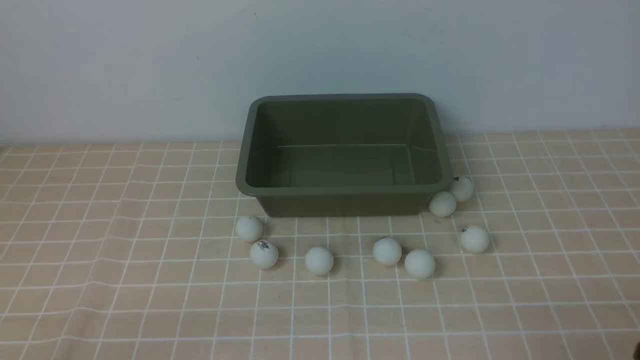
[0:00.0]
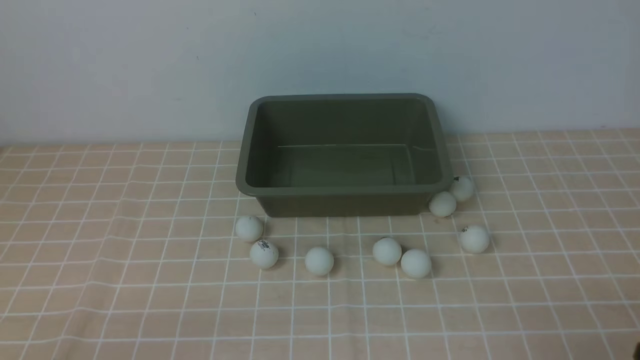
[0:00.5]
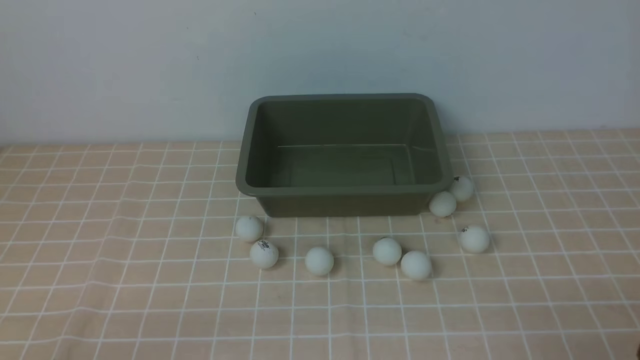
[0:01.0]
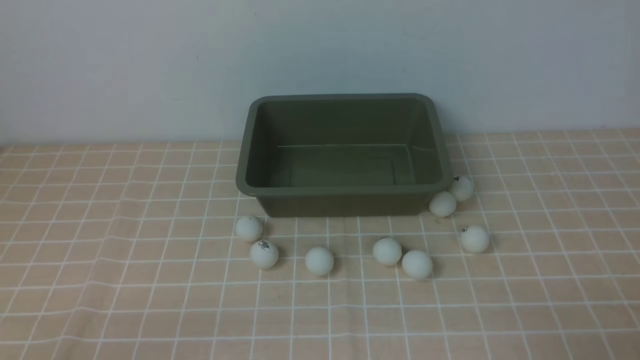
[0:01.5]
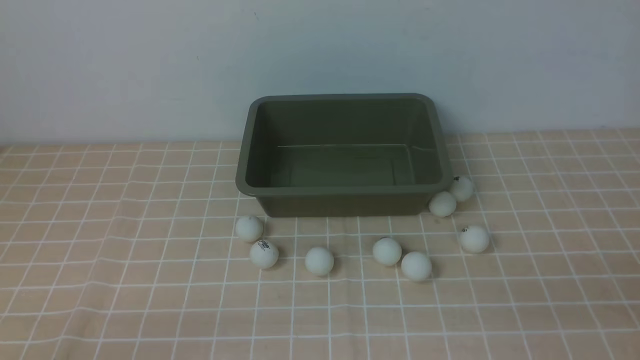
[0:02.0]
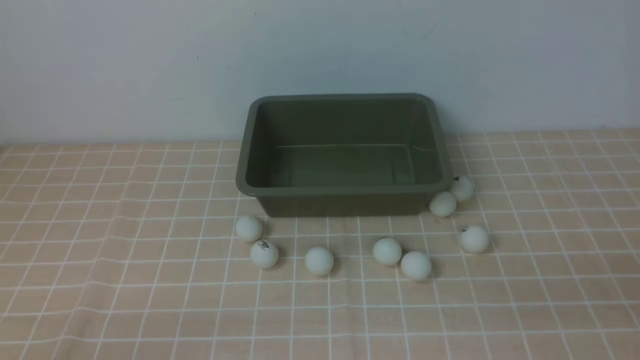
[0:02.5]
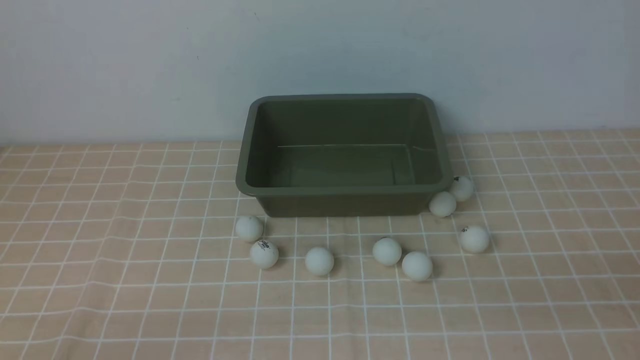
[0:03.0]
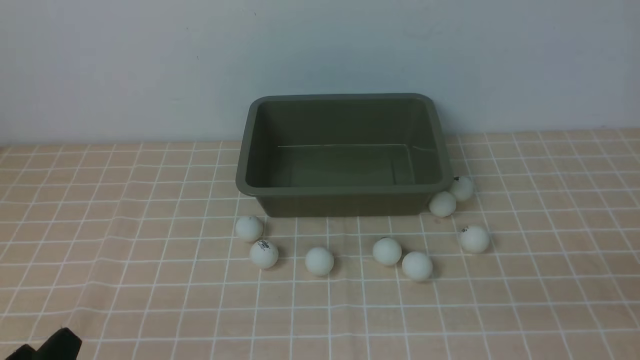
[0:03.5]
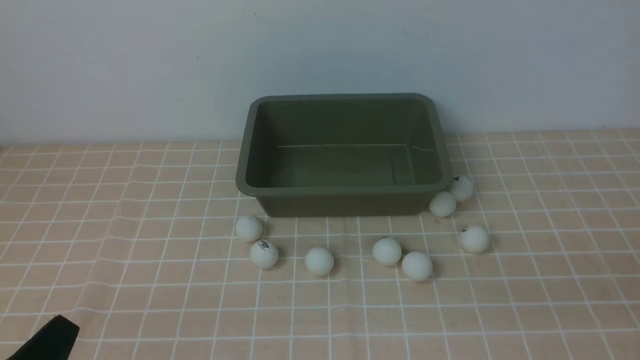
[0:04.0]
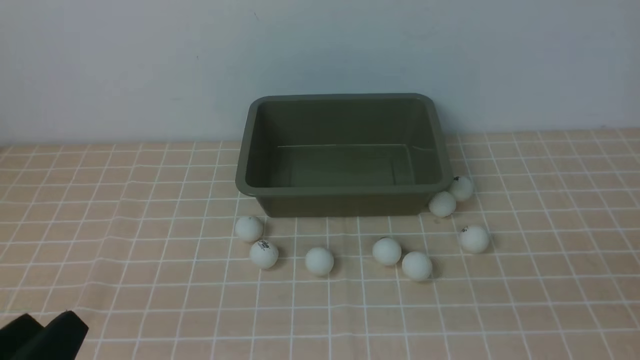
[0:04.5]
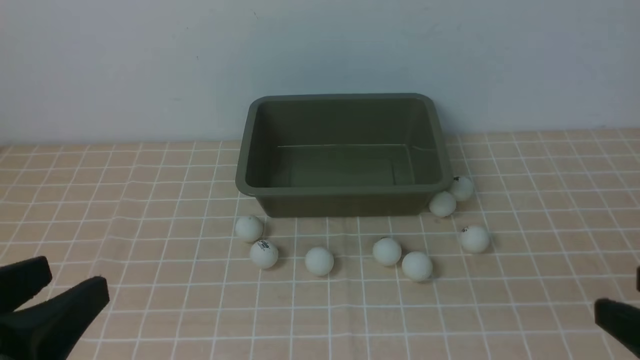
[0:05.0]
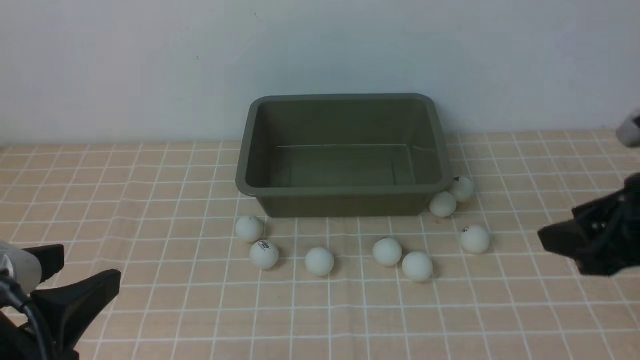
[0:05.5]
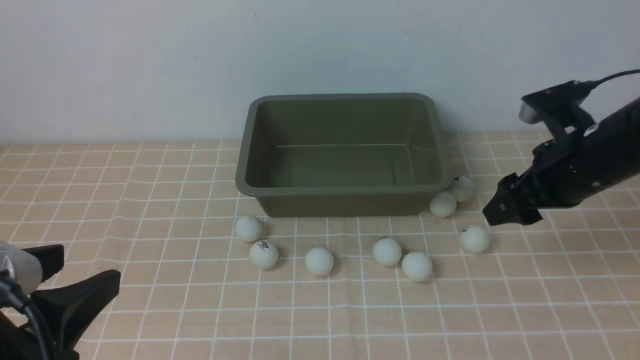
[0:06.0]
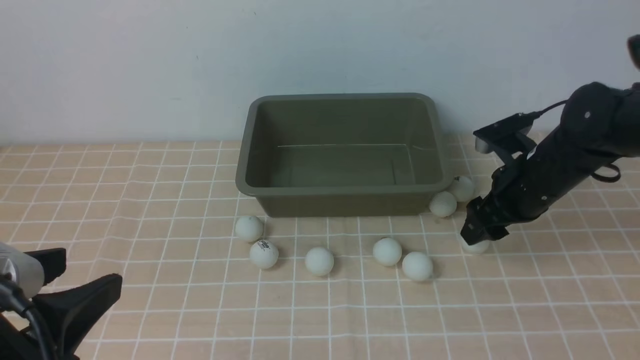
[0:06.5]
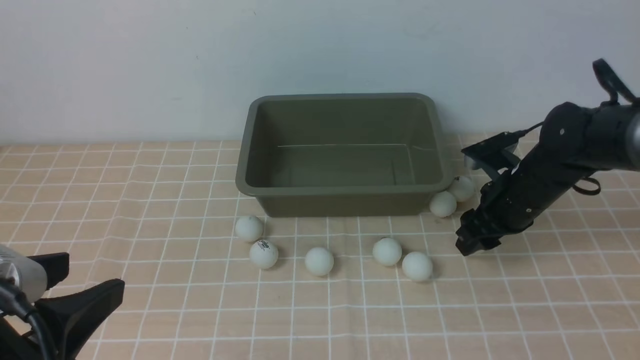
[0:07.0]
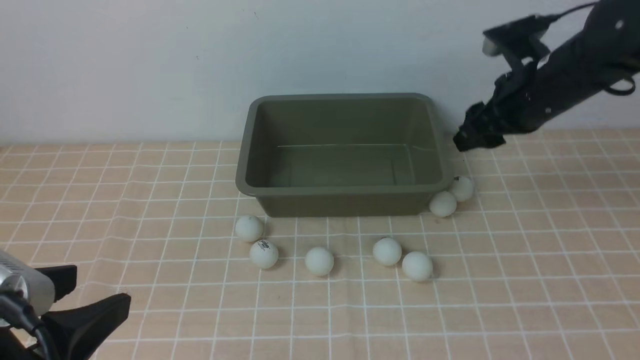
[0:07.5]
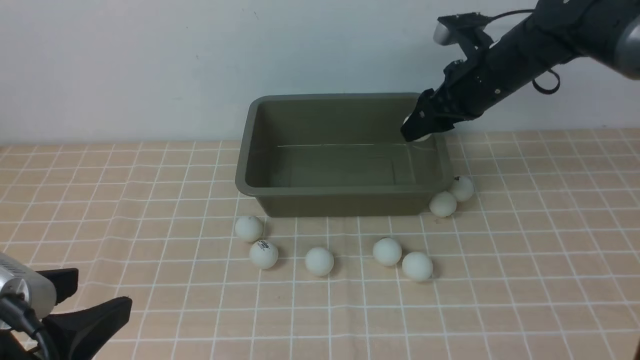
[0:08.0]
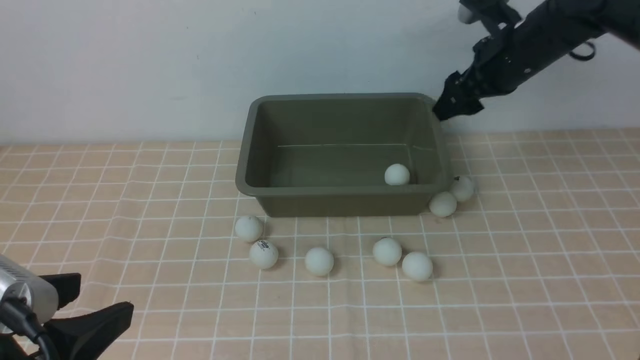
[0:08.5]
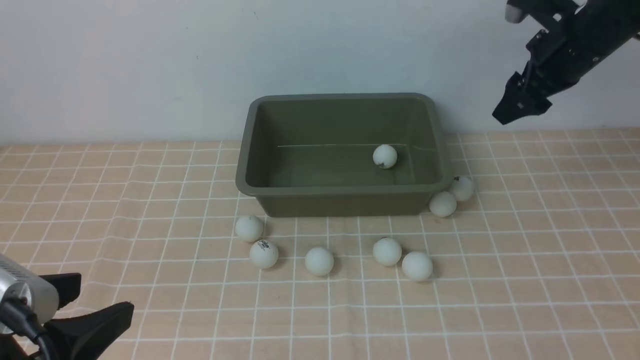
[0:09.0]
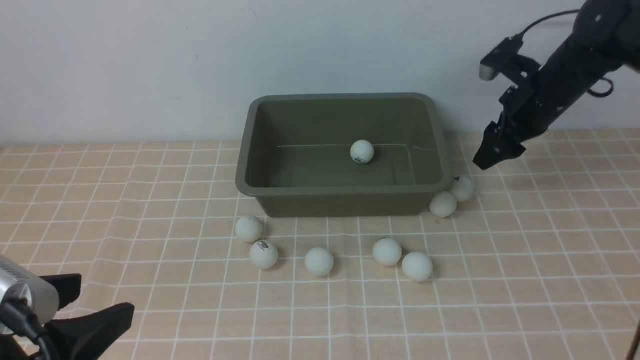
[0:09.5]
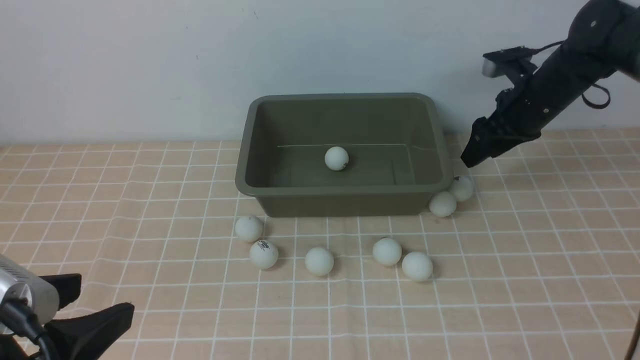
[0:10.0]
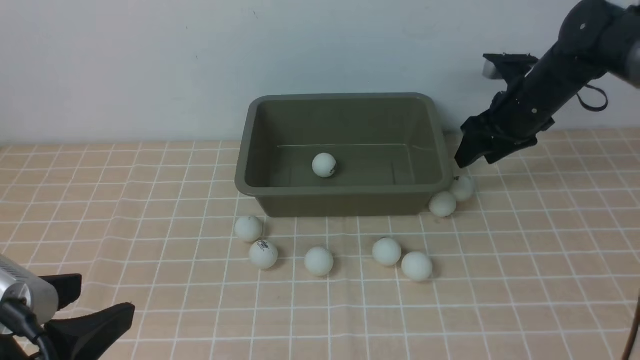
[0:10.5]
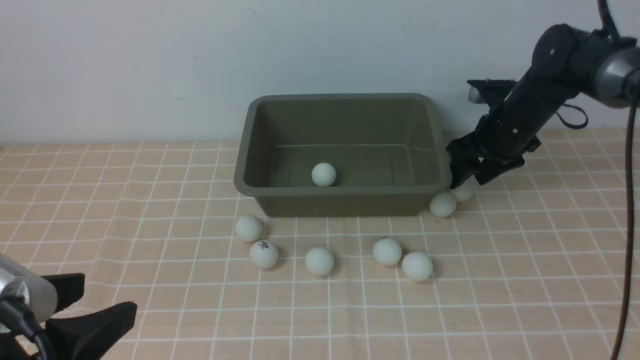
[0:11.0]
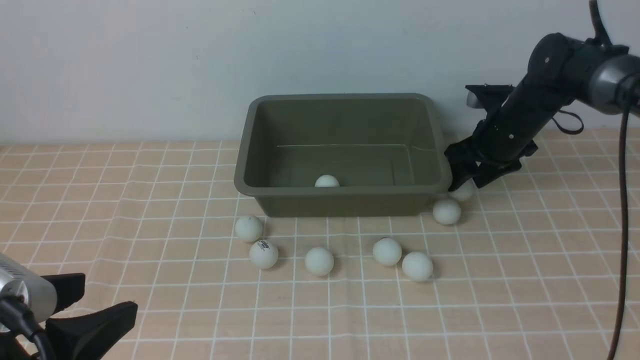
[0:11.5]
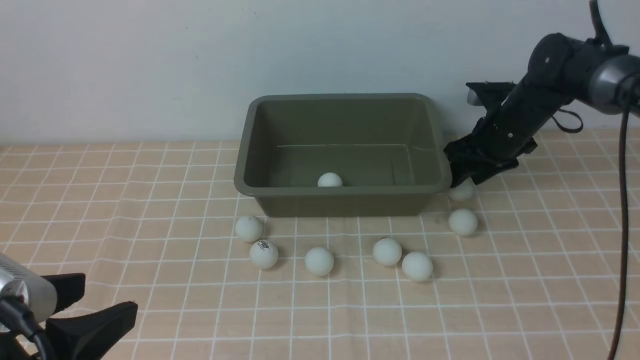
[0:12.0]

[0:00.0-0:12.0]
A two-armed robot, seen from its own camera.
Step, 0:00.0 to 0:07.5: use the right arm to clamp the table tennis ball closest to it.
0:04.0 to 0:06.0: The right gripper shifts roughly 30 cm forward, and opens its fingers, while the left gripper shifts some 10 cm upward.
0:06.0 to 0:08.0: The right gripper is displaced forward and to the left by some 15 cm.
0:08.0 to 0:10.0: The right gripper moves to the right, approximately 5 cm, and opens and closes again.
0:10.0 to 0:12.0: The right gripper shifts by some 5 cm.

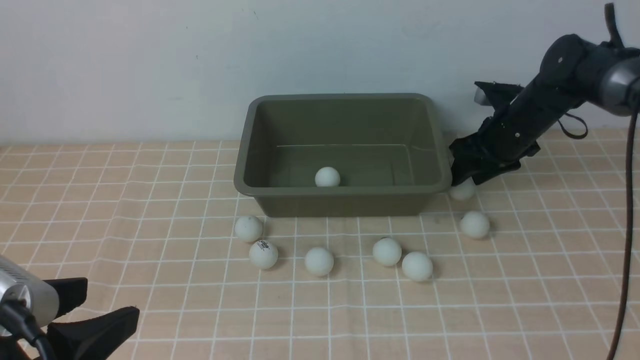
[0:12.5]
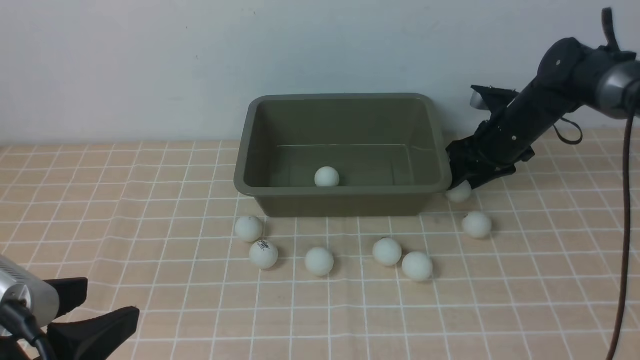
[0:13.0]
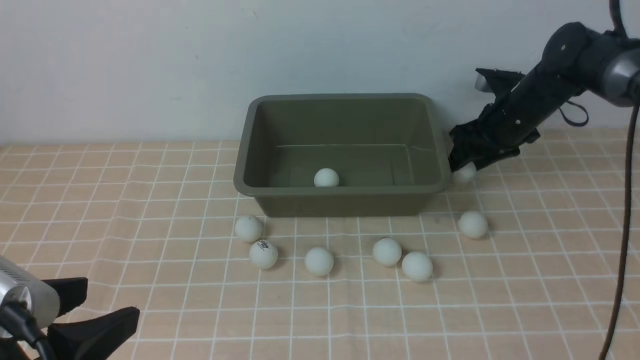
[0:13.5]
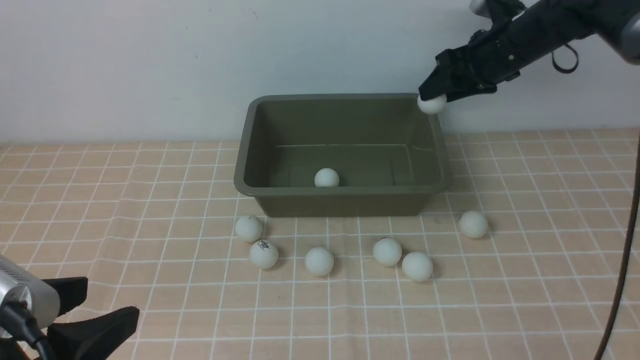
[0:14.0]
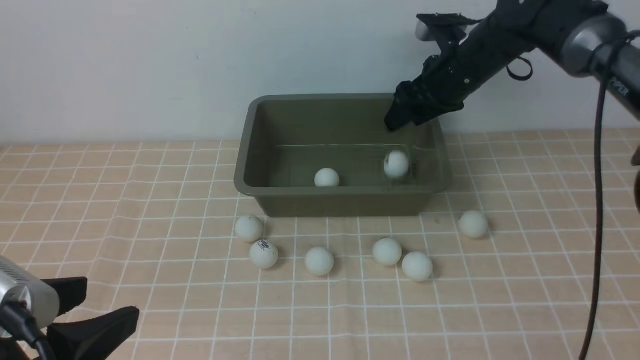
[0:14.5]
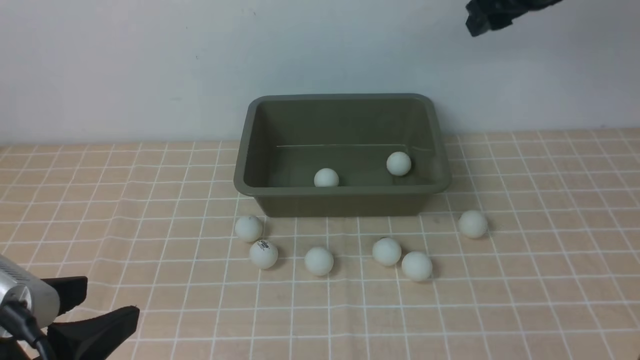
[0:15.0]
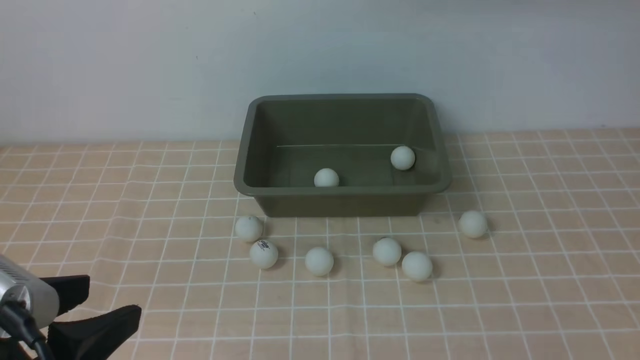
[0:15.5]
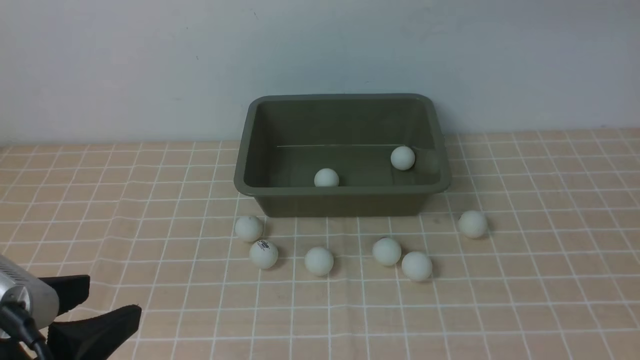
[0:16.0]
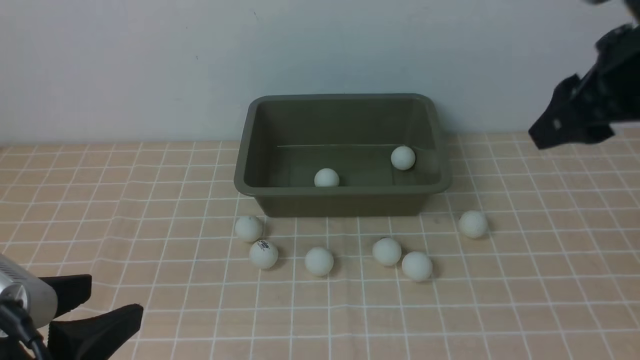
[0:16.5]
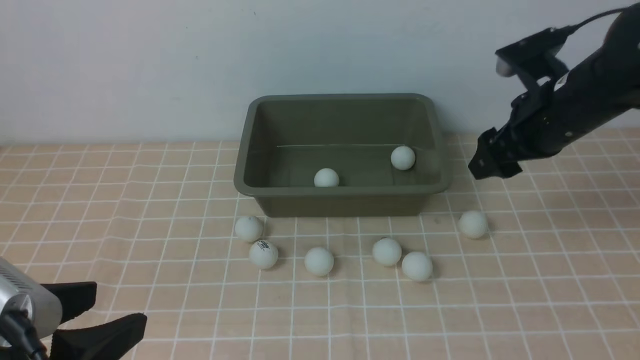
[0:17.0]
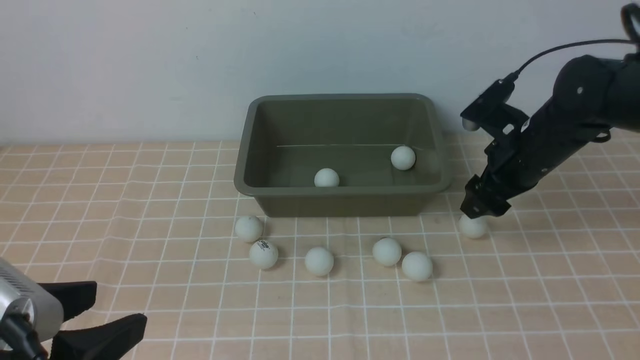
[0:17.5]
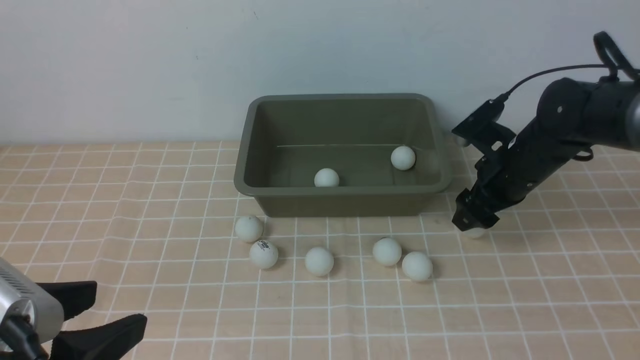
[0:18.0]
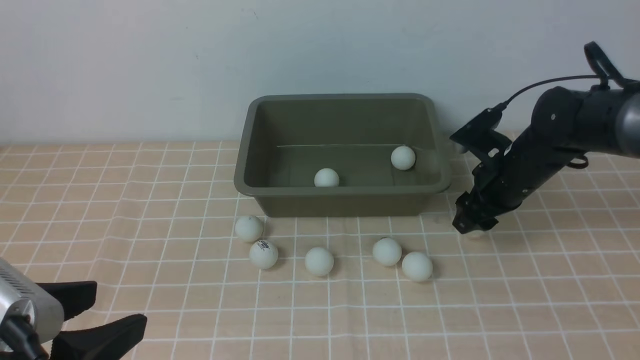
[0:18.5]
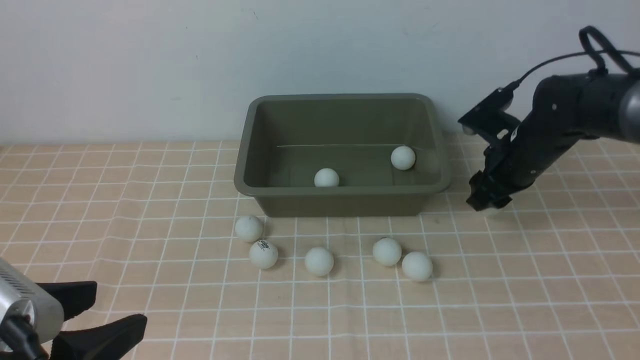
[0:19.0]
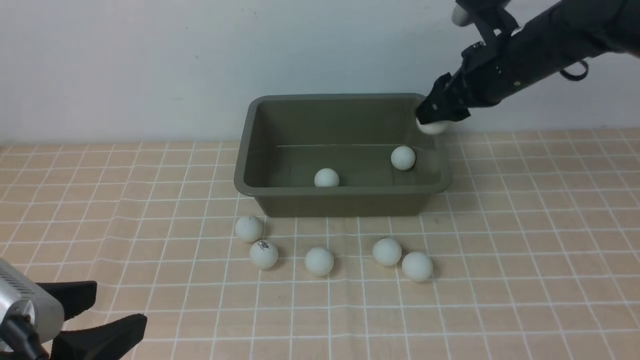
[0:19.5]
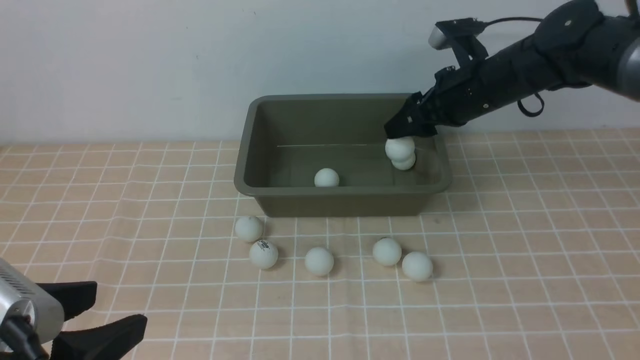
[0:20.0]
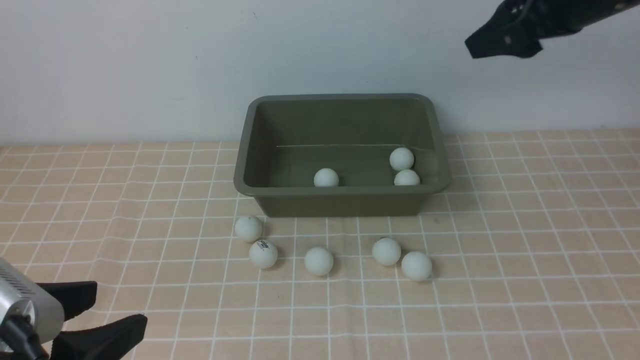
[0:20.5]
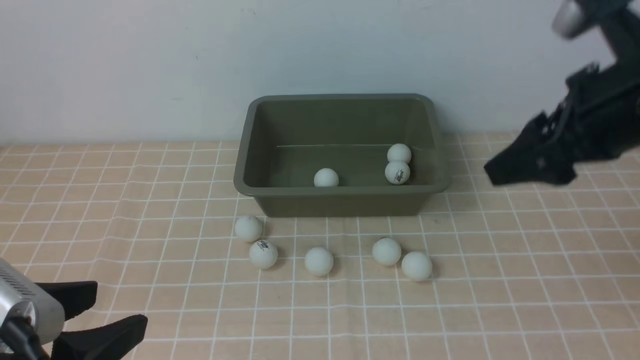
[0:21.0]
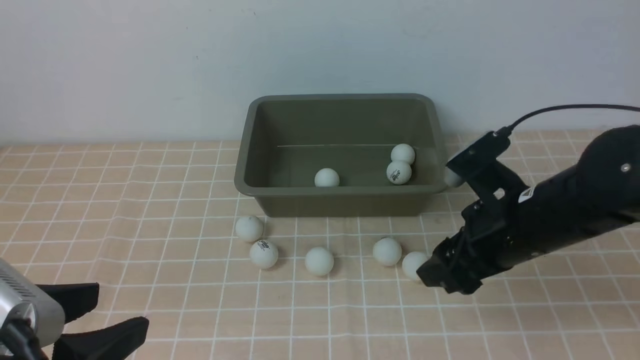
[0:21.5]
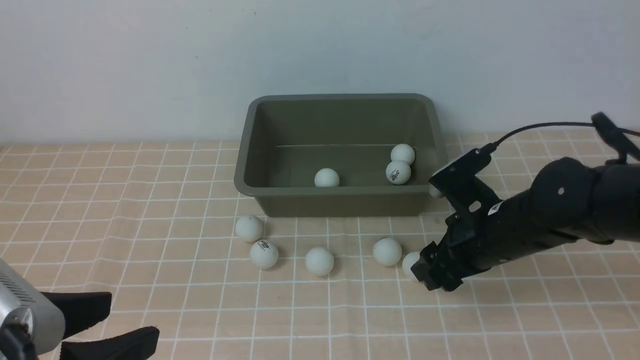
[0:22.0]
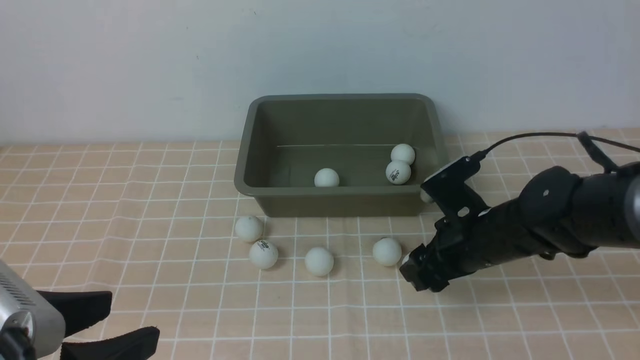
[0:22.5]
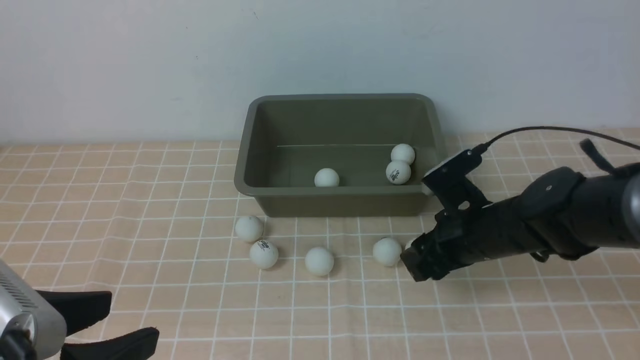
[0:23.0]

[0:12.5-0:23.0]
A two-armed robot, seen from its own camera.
Step, 0:14.0 to 0:14.5: use the right arm to put the table tennis ball into the box.
Step, 0:15.0 to 0:19.0: use the right arm to clamp the table tennis ball closest to it.
Step, 0:19.5 to 0:20.0: use the right arm to put the table tennis ball into the box.
0:12.5 to 0:14.5: The right gripper heads upward and to the left, covering approximately 10 cm, and opens its fingers.
0:14.5 to 0:16.5: The right gripper moves backward and upward, approximately 25 cm, and closes its fingers.
0:16.5 to 0:19.0: The right gripper goes about 20 cm downward and forward, and opens and closes again.
0:19.0 to 0:21.0: The right gripper heads upward and backward, covering approximately 20 cm, and opens up.
0:21.0 to 0:23.0: The right gripper is displaced downward by some 15 cm, and closes up.
